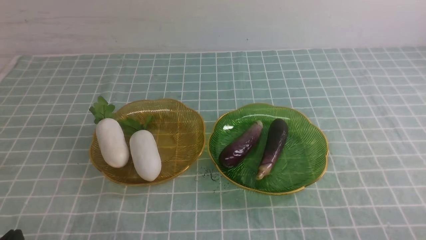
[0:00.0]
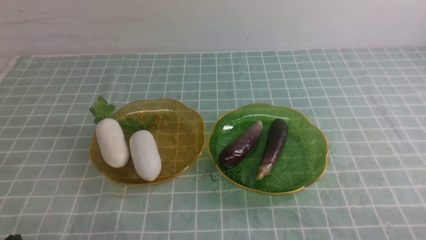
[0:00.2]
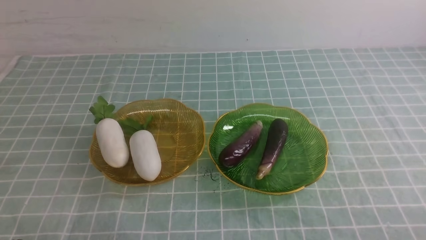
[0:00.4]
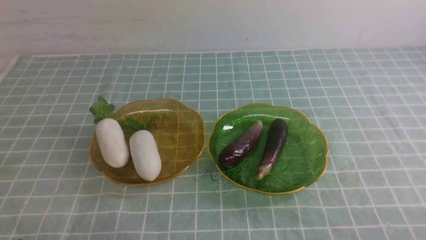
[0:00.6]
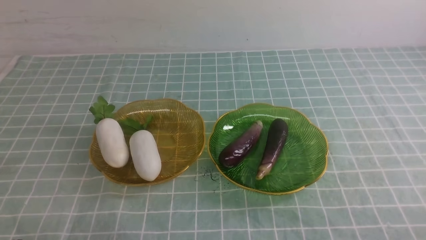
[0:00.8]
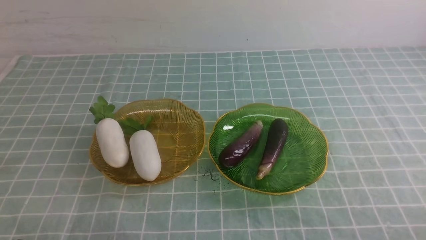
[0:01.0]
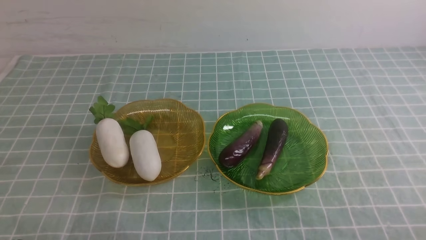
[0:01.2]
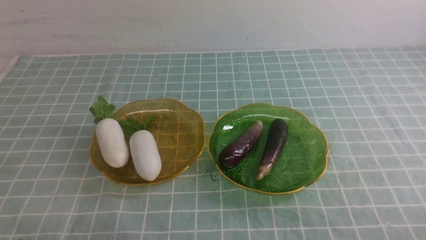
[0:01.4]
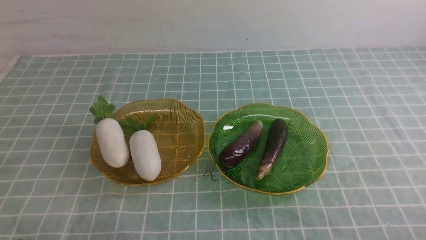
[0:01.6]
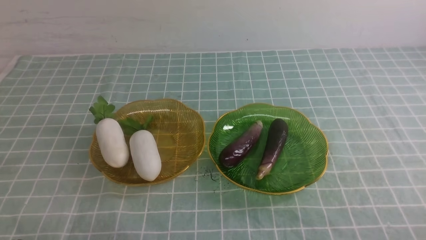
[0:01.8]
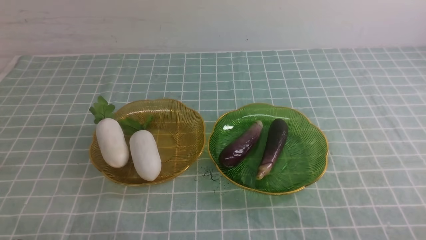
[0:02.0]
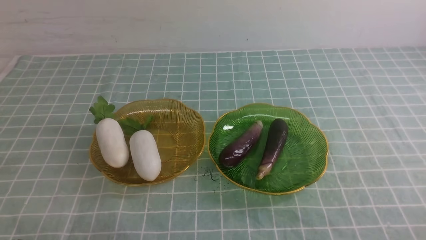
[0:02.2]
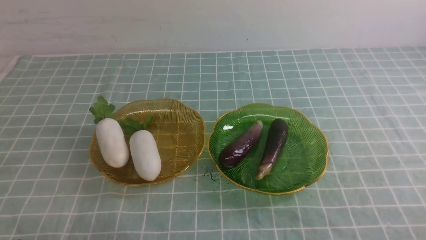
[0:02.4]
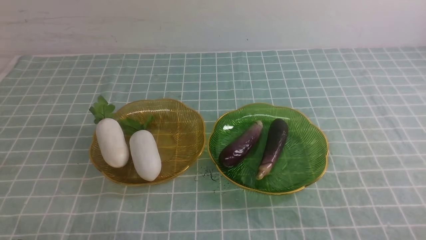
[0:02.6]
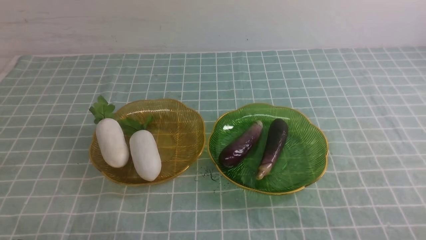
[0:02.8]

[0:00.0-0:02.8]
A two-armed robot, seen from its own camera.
0:00.0 to 0:02.8: The two grippers keep their place.
